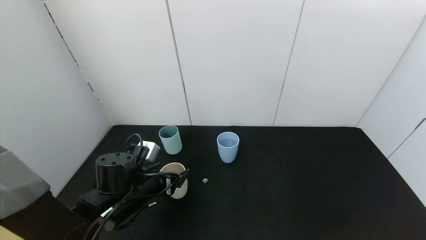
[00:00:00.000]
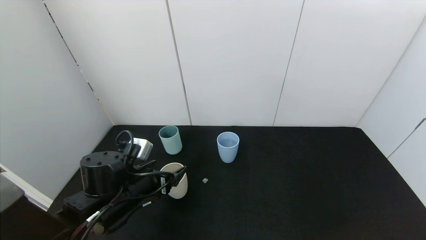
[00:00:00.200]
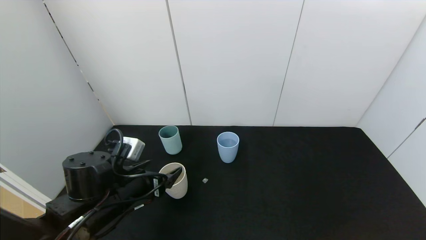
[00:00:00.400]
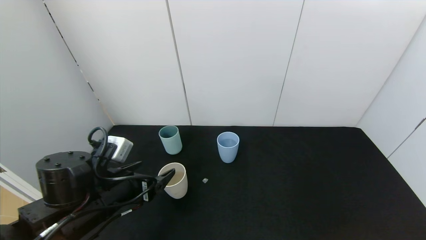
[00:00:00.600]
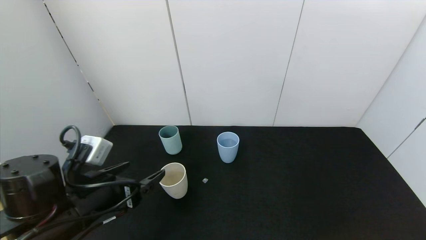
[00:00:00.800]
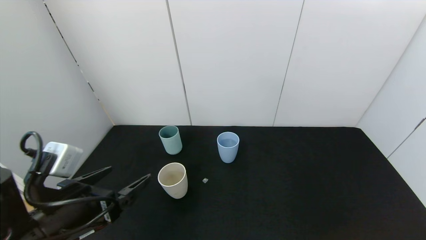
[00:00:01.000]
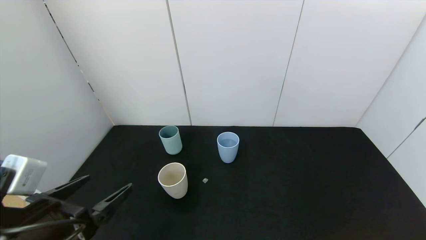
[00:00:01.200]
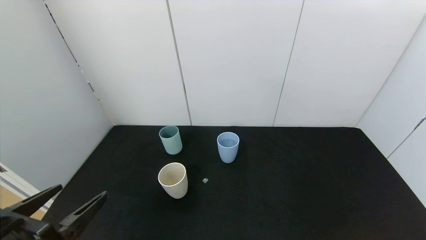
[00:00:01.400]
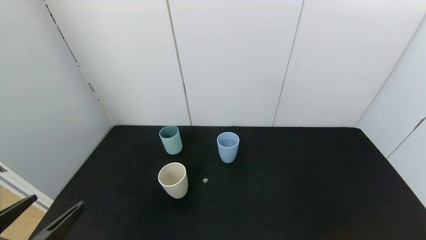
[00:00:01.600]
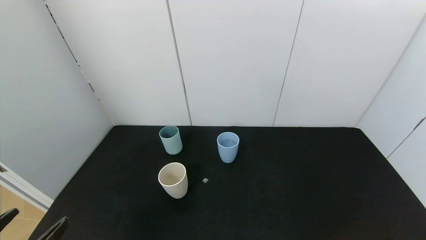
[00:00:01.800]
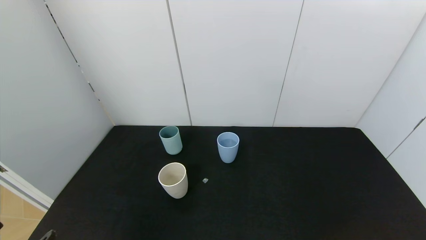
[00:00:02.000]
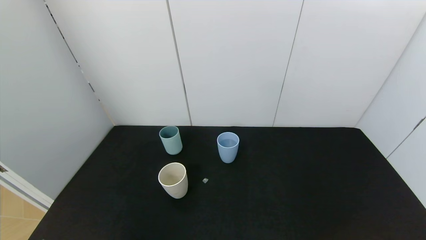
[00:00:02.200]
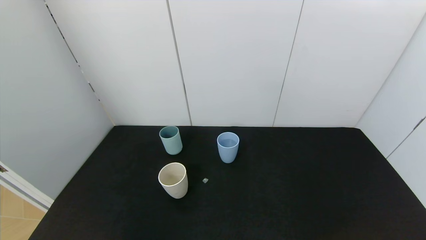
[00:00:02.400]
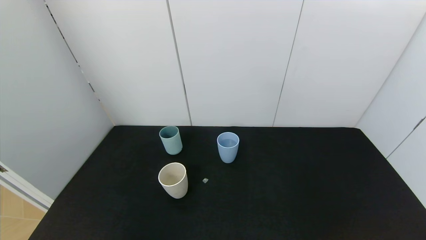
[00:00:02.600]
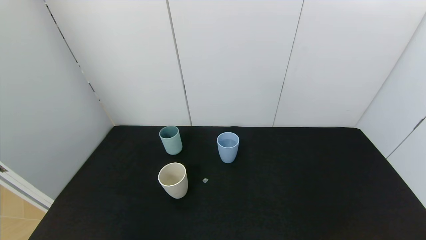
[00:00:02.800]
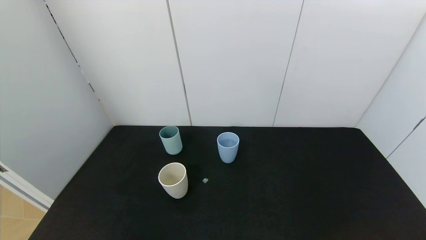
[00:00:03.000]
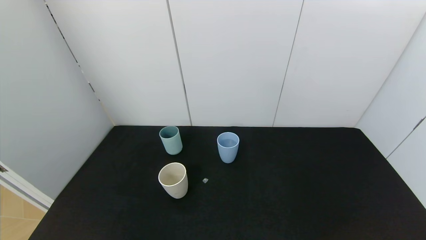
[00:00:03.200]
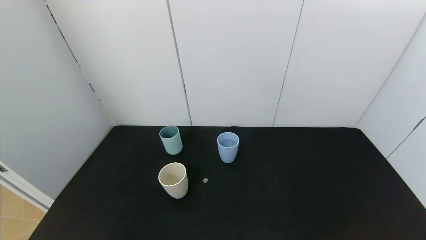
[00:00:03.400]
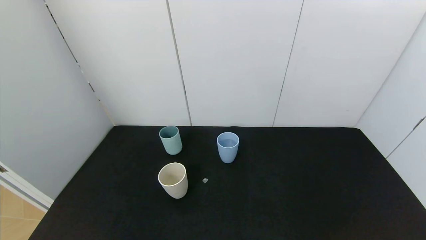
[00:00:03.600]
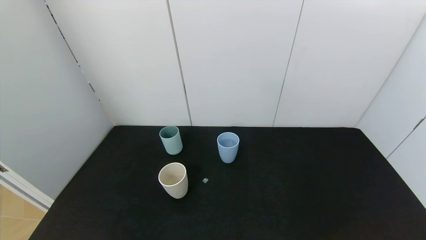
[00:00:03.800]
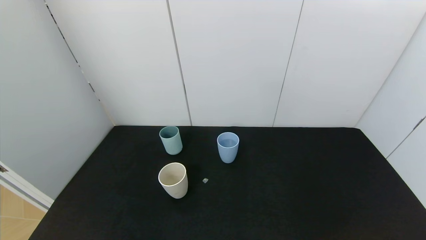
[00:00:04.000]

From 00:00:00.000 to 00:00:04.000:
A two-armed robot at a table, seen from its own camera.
Task of the whole recording: use the gripper to pour the water into the other two cups on black table.
From 00:00:00.000 to 00:00:01.400: The left gripper is displaced backward, upward and to the left by roughly 20 cm.
From 00:00:01.400 to 00:00:02.600: The left gripper goes some 10 cm backward.
